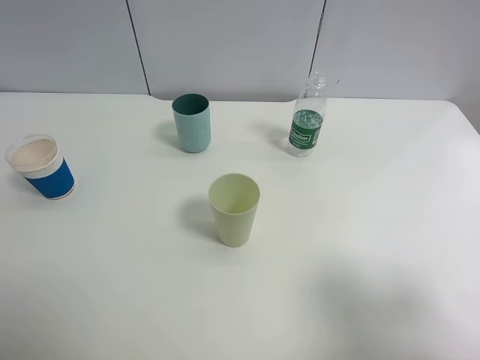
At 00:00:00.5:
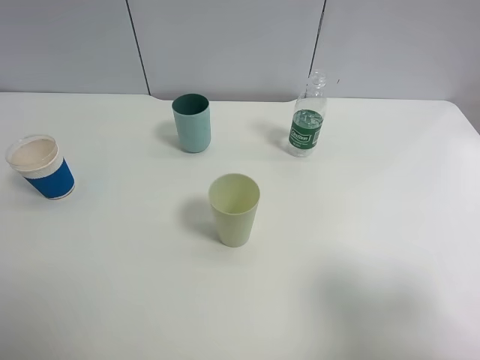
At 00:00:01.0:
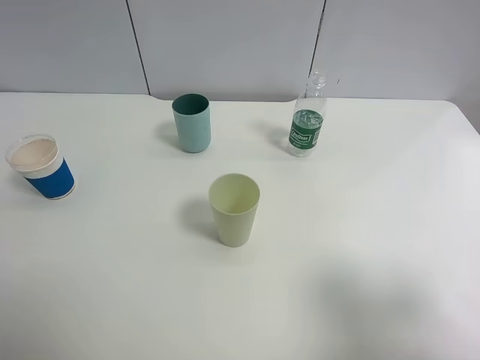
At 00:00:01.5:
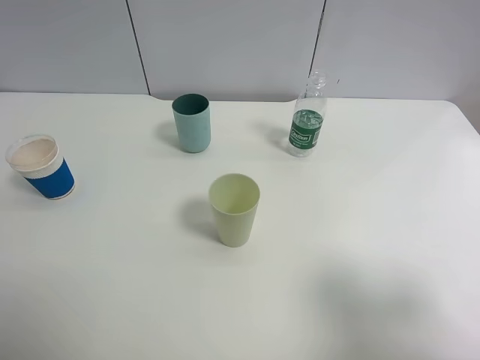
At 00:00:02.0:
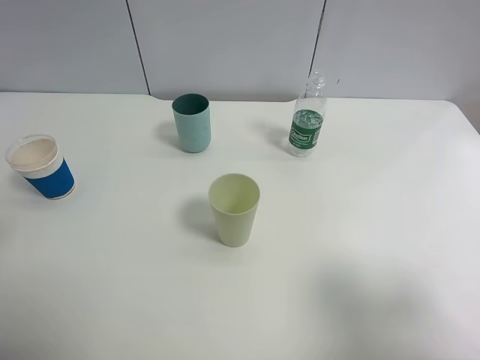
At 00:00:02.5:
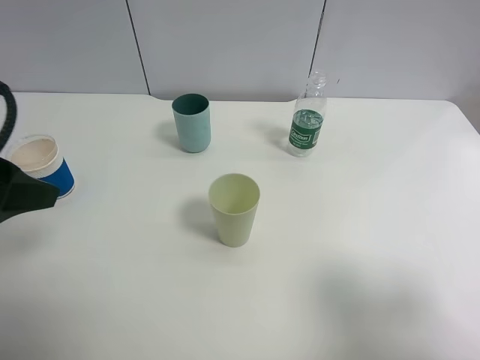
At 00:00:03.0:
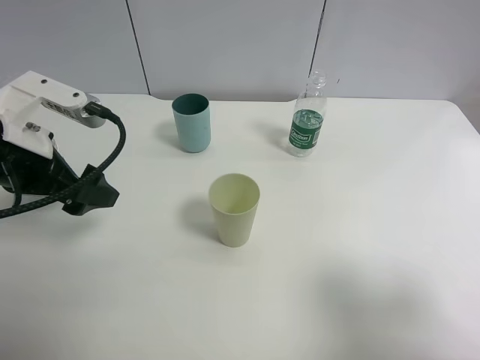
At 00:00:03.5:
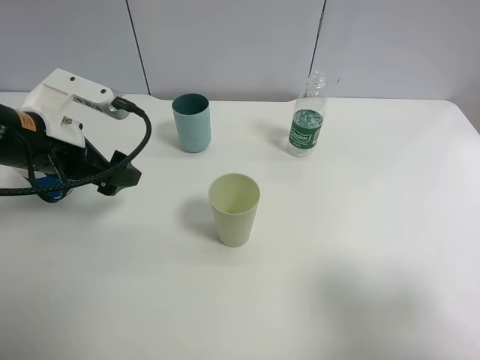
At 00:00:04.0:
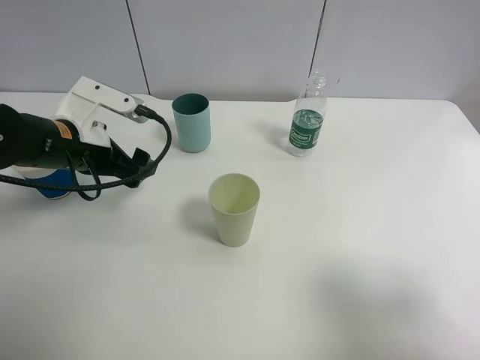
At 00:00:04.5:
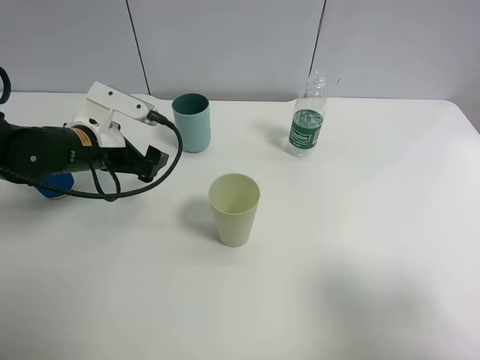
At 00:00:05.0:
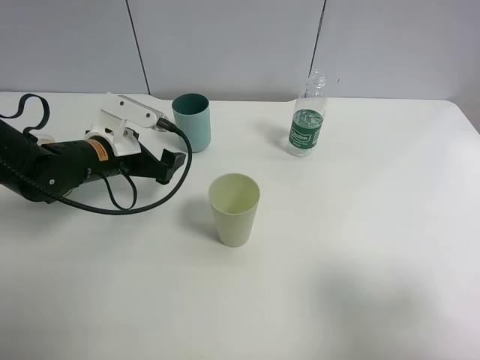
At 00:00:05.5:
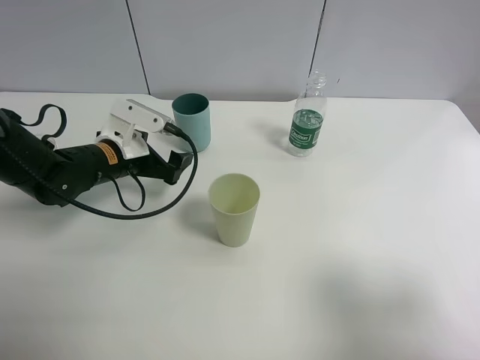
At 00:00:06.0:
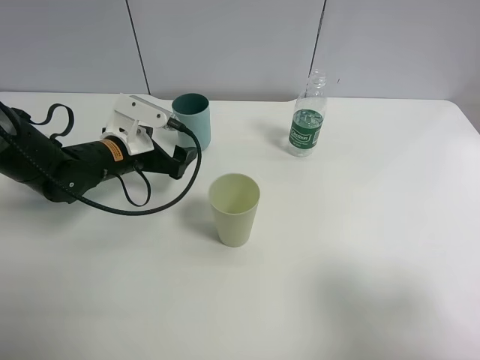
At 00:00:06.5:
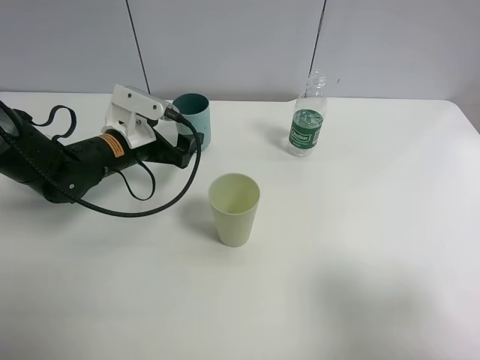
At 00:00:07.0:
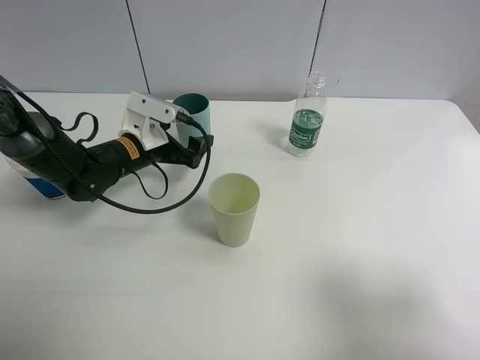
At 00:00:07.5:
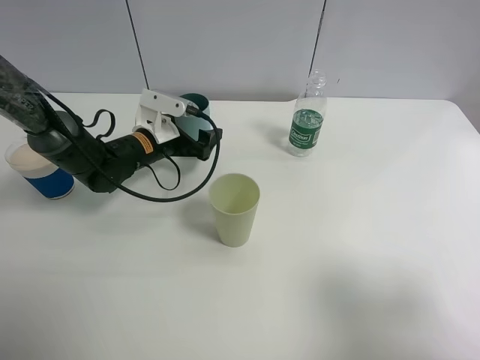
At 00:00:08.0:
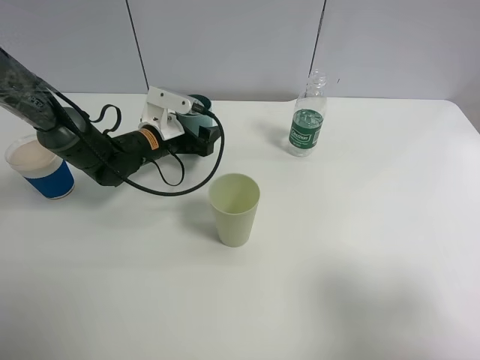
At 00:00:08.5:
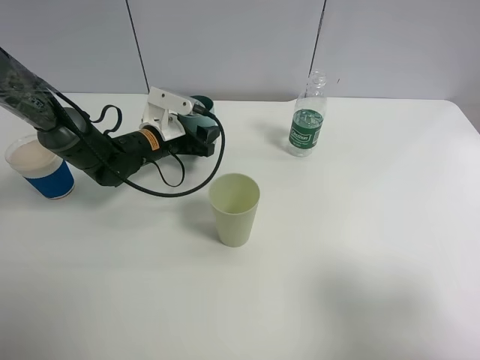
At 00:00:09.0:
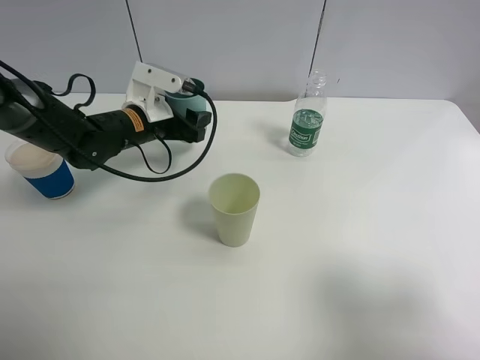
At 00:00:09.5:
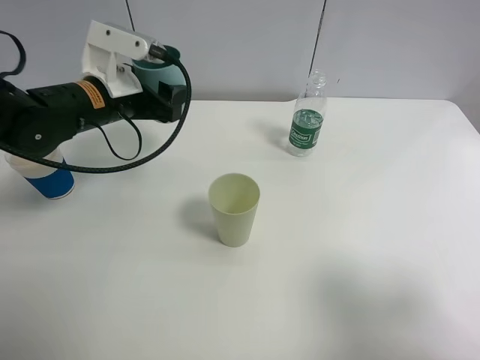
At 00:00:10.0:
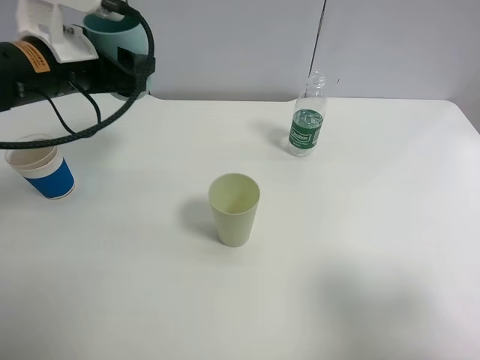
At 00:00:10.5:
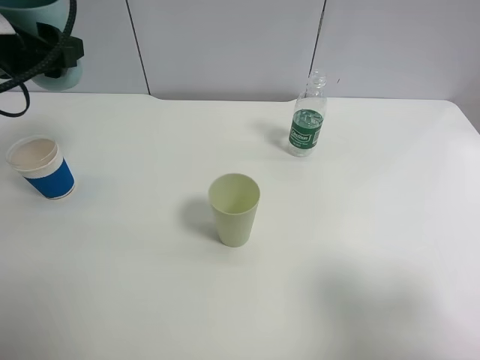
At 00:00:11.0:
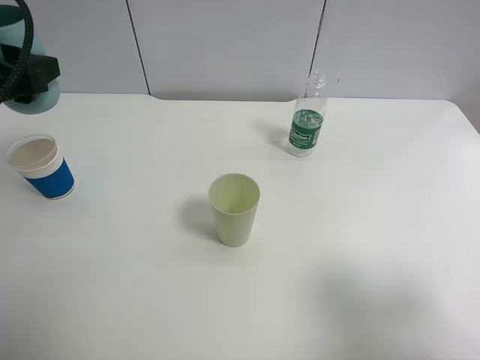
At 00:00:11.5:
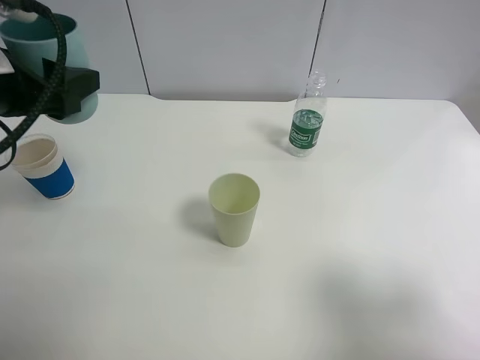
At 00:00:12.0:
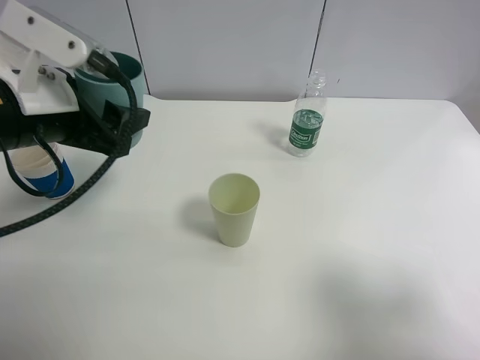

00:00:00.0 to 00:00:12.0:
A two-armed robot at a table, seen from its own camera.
Task of the whole recording: use a clamp to hold the bottle of the drink, pour the beverage into a random cup, then clamp the cup containing the drink and pour the drink into another random cup.
Step, 00:00:00.0 to 00:00:08.5: Pick up the blue plastic cup with left gripper.
00:00:02.0 to 00:00:04.0: The left gripper shifts some 25 cm forward, downward and to the right.
00:00:04.0 to 00:00:06.0: The left gripper heads downward, covering some 5 cm.
00:00:06.0 to 00:00:08.0: The left gripper is displaced forward by some 5 cm, and closes its fingers.
00:00:08.0 to 00:00:10.0: The left gripper moves upward and backward, some 20 cm.
00:00:10.0 to 00:00:12.0: The left gripper goes approximately 10 cm backward.

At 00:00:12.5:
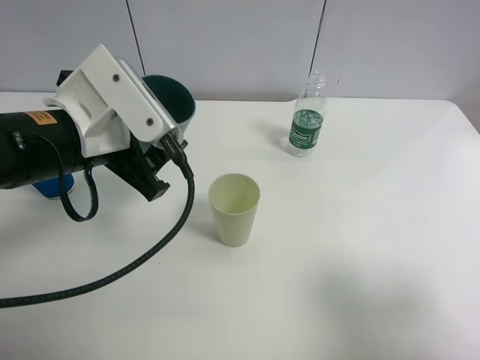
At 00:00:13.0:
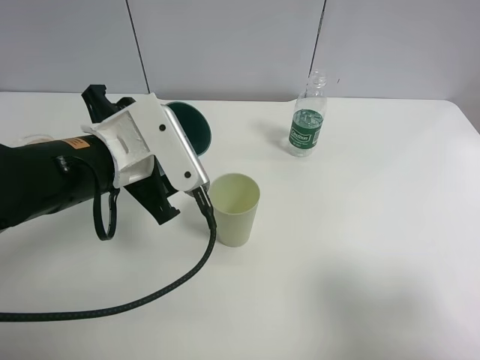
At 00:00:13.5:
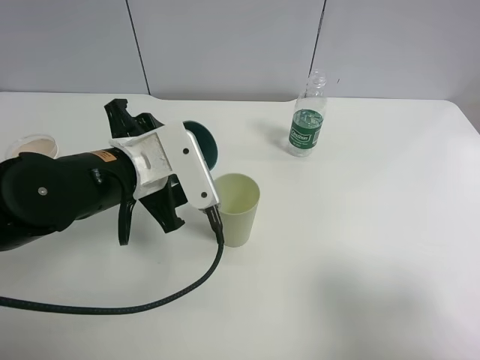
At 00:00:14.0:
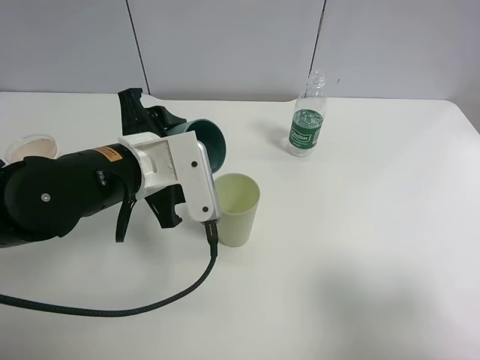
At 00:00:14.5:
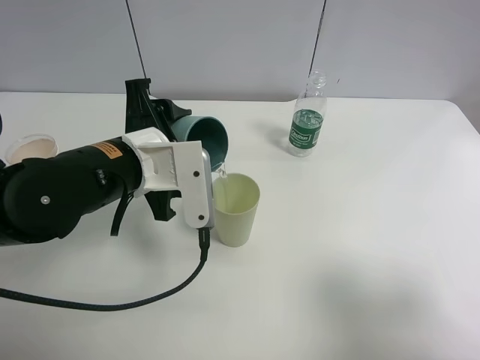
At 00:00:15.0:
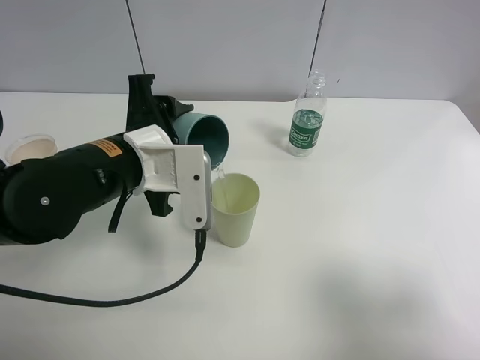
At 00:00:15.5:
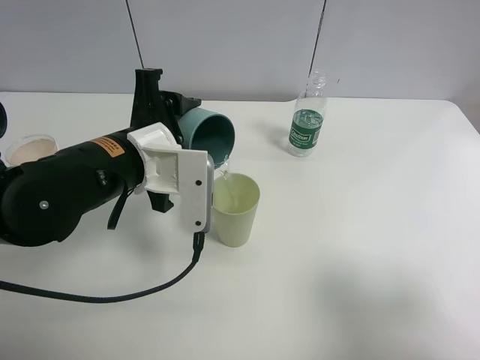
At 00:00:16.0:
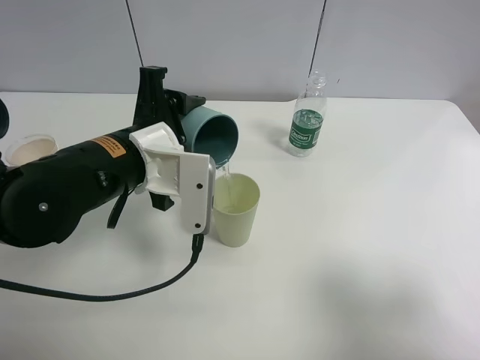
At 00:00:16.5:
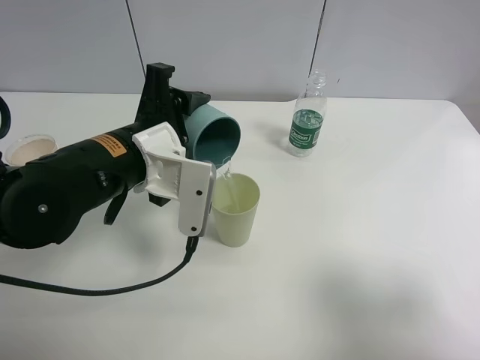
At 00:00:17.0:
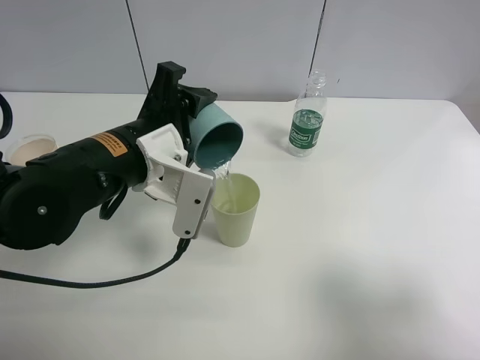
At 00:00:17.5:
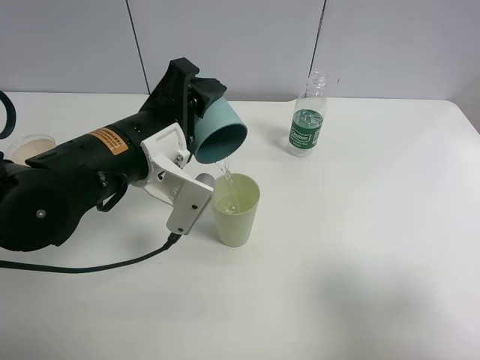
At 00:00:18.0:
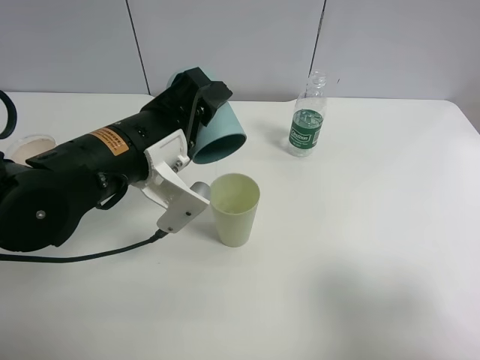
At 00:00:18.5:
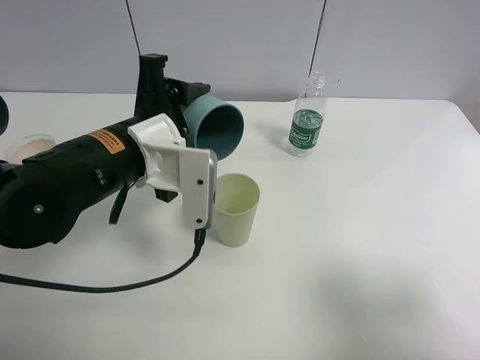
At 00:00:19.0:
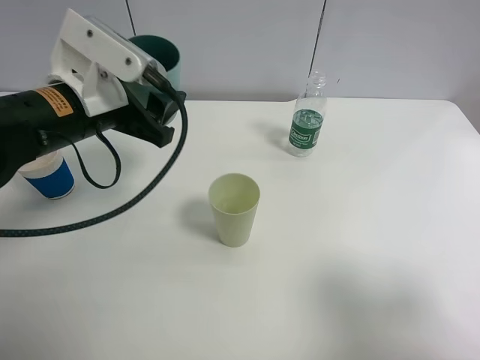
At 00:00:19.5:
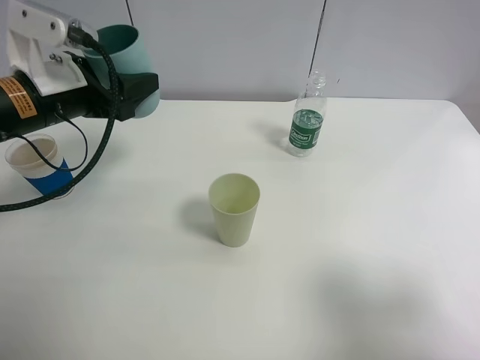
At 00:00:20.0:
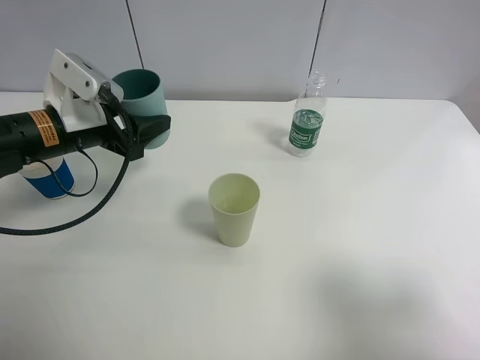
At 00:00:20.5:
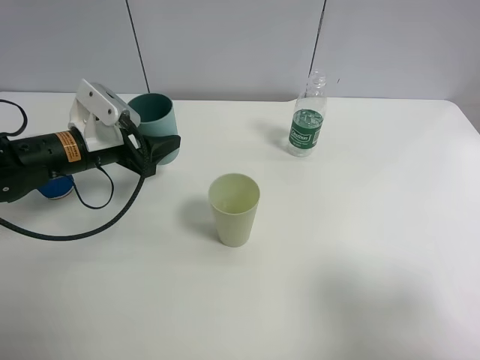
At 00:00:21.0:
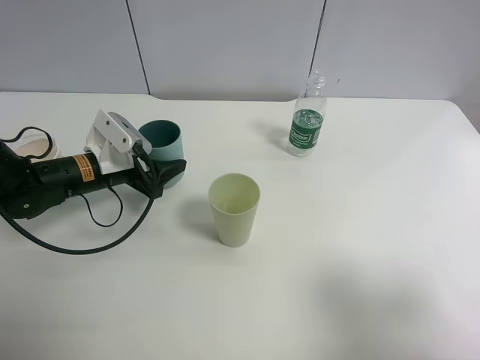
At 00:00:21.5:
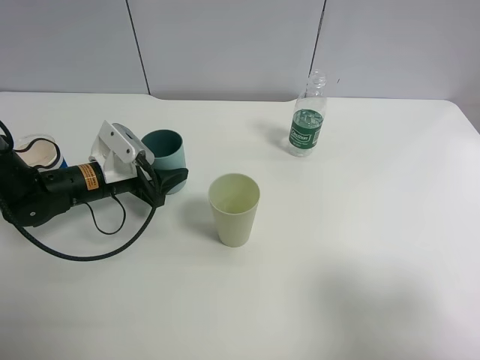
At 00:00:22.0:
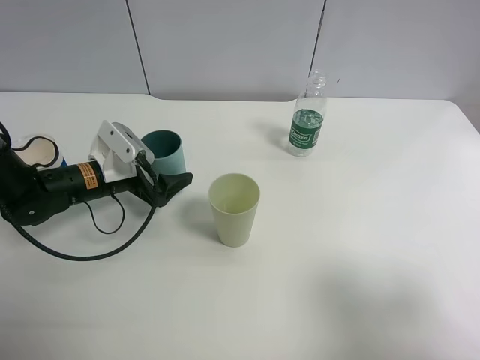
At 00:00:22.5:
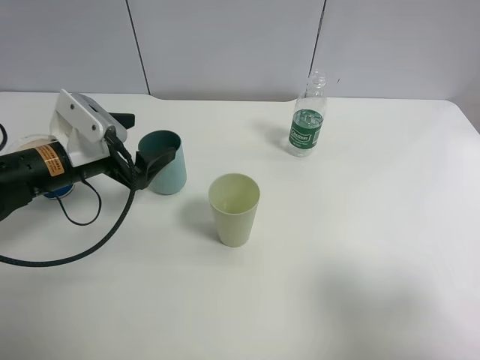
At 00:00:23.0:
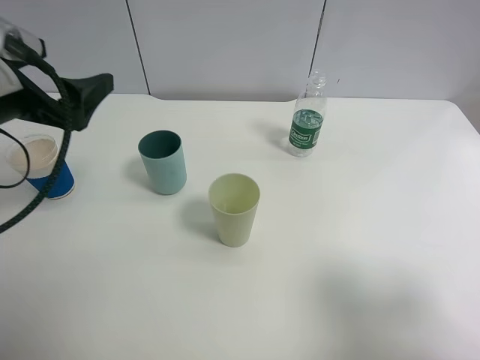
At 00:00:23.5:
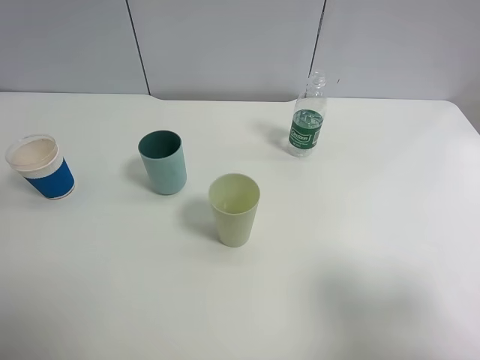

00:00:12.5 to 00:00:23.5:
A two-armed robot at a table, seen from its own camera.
Task of the whole recording: use a clamp to hold the bottle of the drink, pour the beverage into a random cup, then clamp the cup containing the drink and pour the drink into another random cup.
Step, 00:00:12.5 to 00:00:18.5: Pour the water into the green plastic cup with left gripper.
Step, 00:00:19.0 to 00:00:22.0: Place the blue plastic cup on the table with left gripper.
00:00:12.5 to 00:00:14.5: The left gripper changes place by some 5 cm.
00:00:14.5 to 00:00:16.0: There are only small adjustments of the grippers.
00:00:18.0 to 00:00:20.0: The left gripper moves to the left and forward, approximately 15 cm.
00:00:20.0 to 00:00:21.5: The left gripper is displaced downward by some 10 cm.
00:00:21.5 to 00:00:23.5: The left gripper is displaced upward and backward by roughly 30 cm, and opens.

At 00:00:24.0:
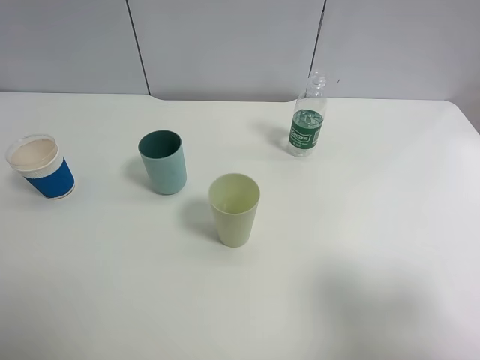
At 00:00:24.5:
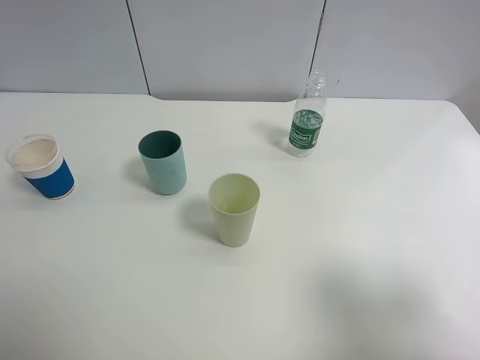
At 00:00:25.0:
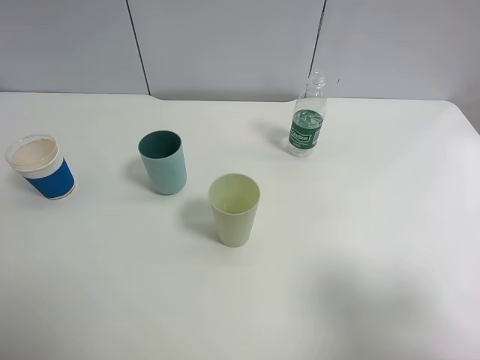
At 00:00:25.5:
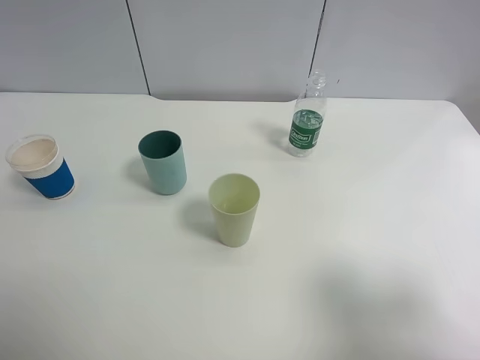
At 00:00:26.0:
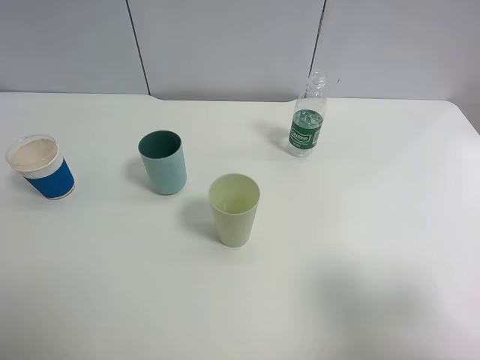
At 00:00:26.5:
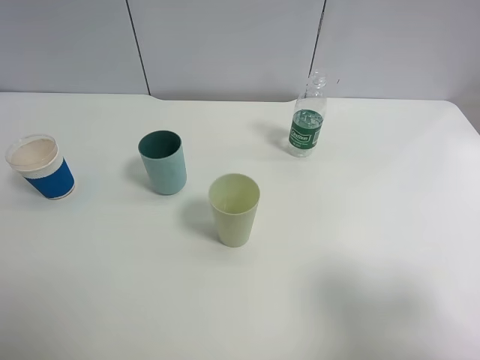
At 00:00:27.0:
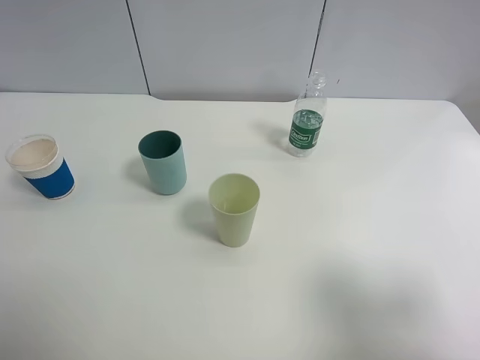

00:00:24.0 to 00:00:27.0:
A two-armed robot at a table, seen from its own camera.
Task of the whole recording: use a clamp to hold the bottle of the drink, pour the beverage into a random cup, then clamp the cup containing the drink and pour the drink into another random cup.
00:00:25.5 to 00:00:27.0: Both grippers stay put.
